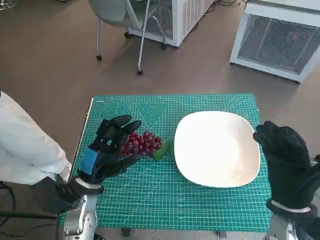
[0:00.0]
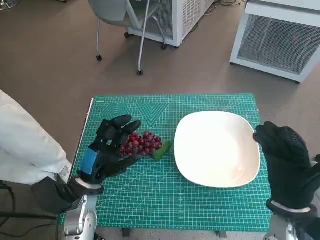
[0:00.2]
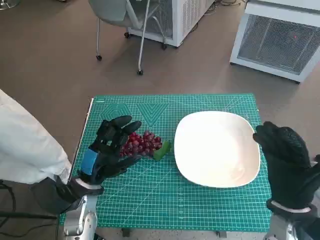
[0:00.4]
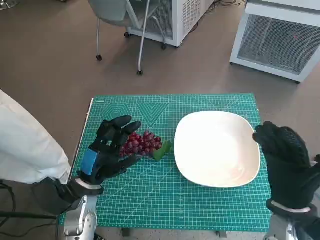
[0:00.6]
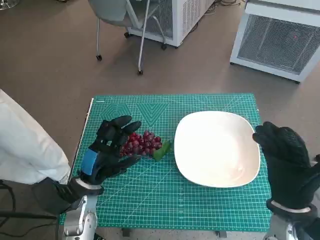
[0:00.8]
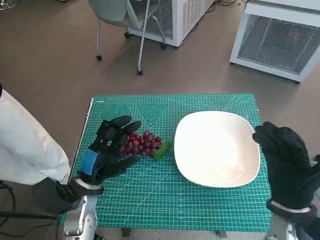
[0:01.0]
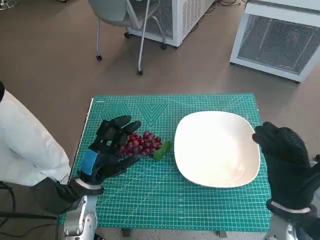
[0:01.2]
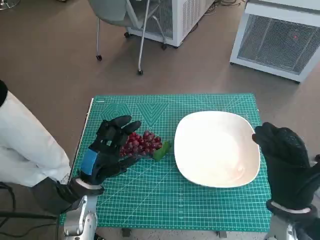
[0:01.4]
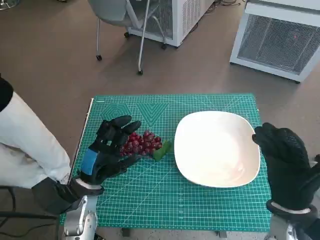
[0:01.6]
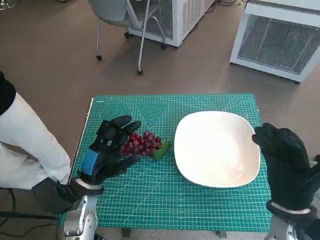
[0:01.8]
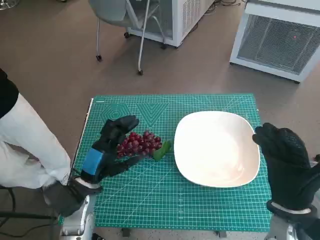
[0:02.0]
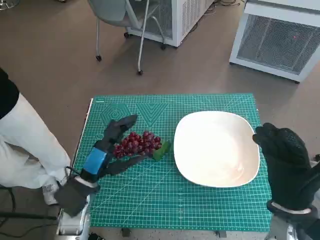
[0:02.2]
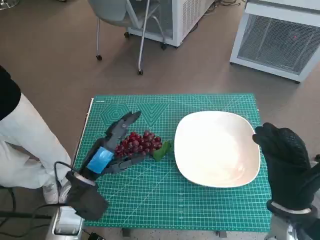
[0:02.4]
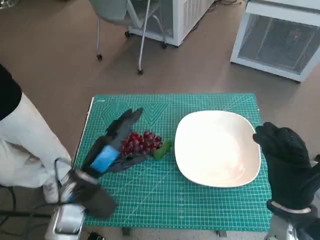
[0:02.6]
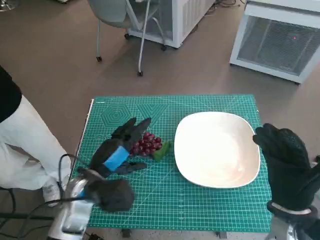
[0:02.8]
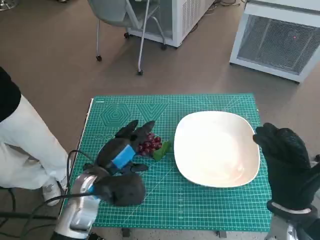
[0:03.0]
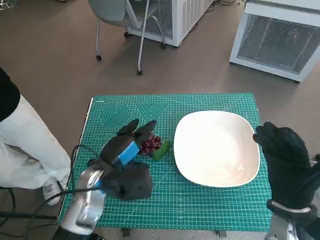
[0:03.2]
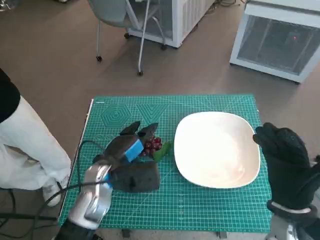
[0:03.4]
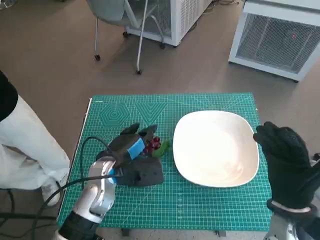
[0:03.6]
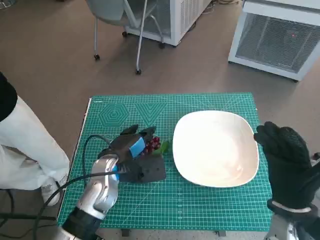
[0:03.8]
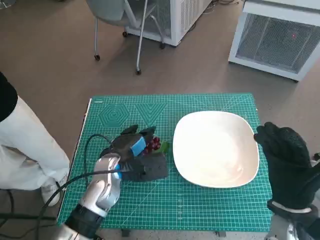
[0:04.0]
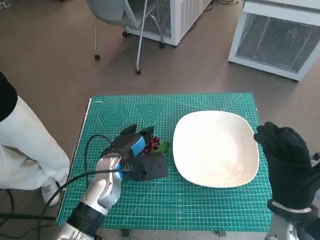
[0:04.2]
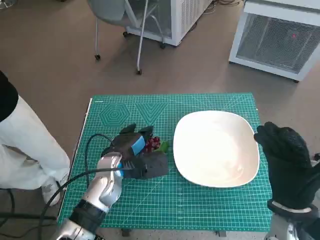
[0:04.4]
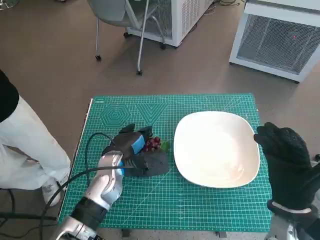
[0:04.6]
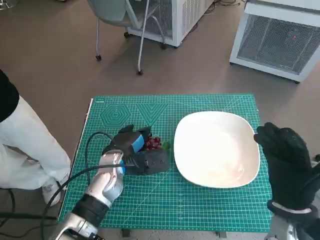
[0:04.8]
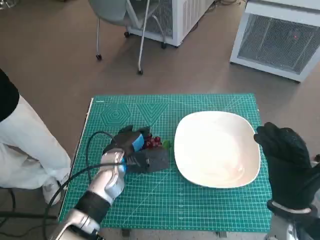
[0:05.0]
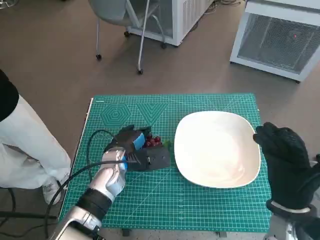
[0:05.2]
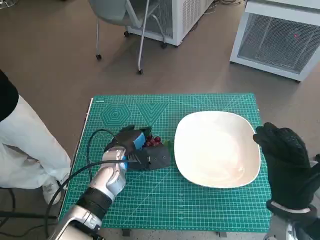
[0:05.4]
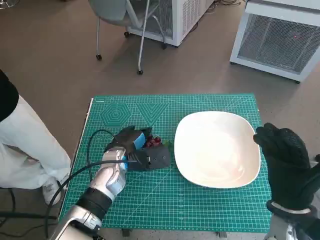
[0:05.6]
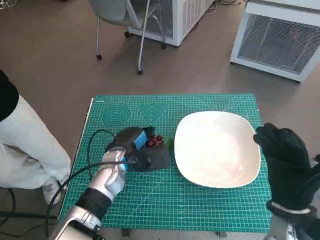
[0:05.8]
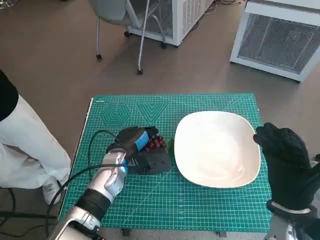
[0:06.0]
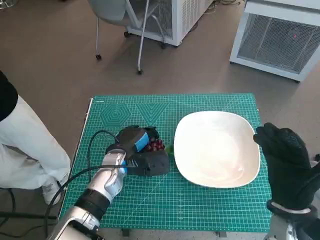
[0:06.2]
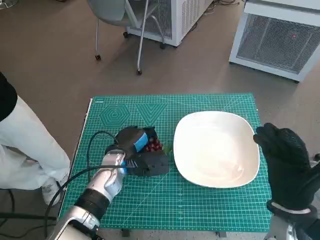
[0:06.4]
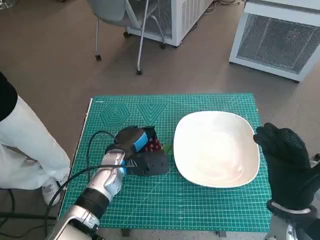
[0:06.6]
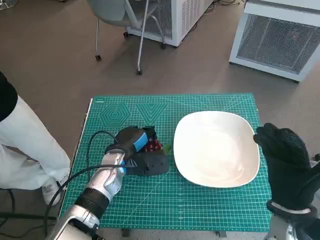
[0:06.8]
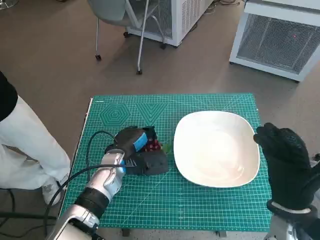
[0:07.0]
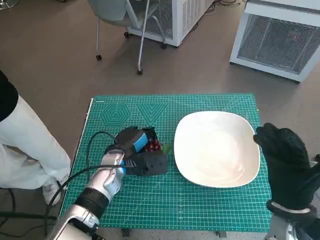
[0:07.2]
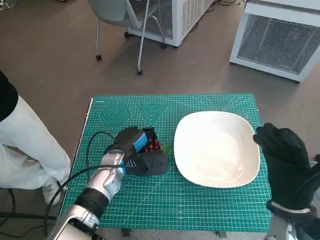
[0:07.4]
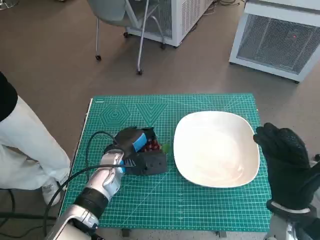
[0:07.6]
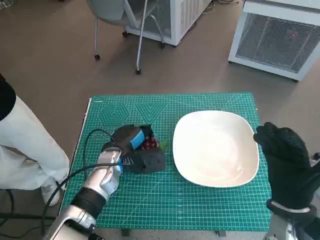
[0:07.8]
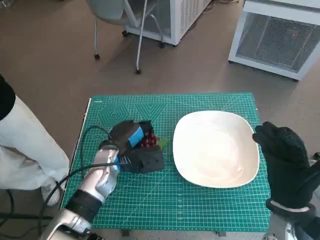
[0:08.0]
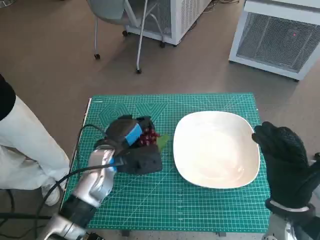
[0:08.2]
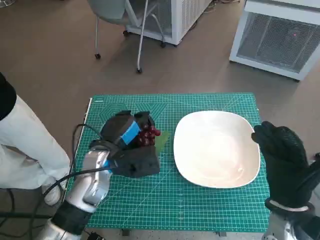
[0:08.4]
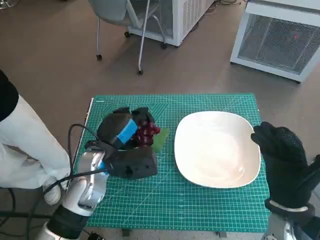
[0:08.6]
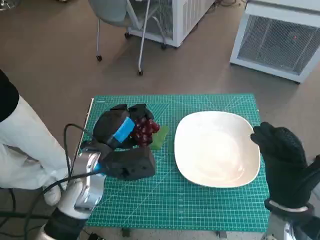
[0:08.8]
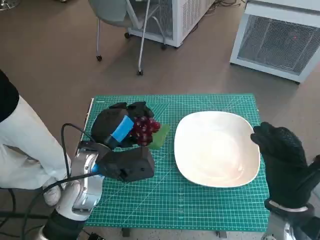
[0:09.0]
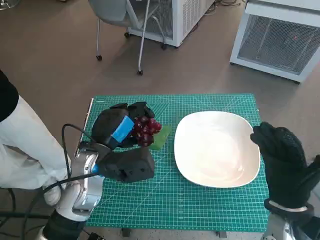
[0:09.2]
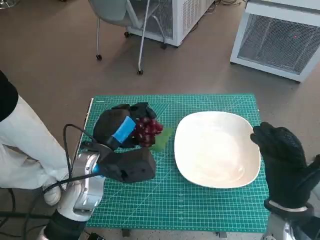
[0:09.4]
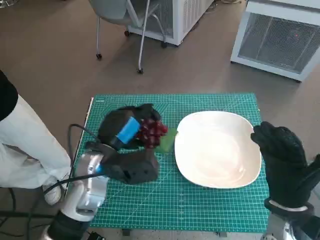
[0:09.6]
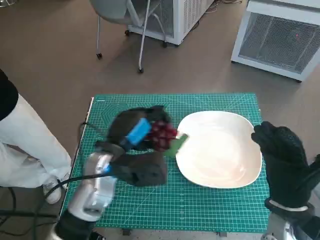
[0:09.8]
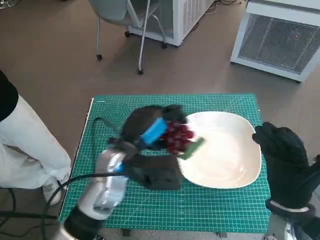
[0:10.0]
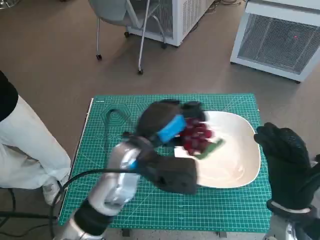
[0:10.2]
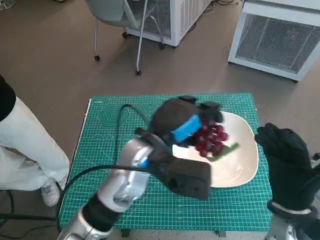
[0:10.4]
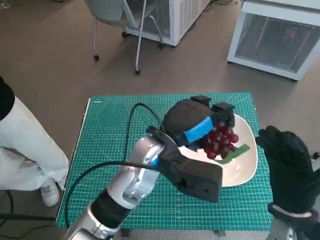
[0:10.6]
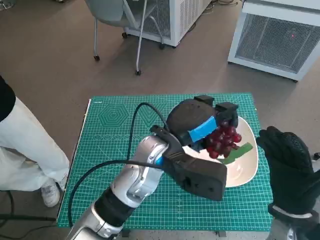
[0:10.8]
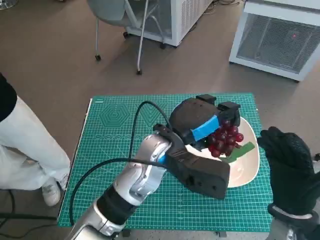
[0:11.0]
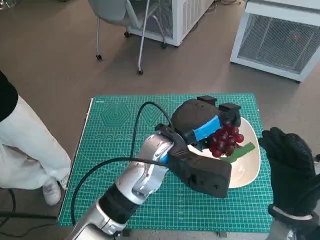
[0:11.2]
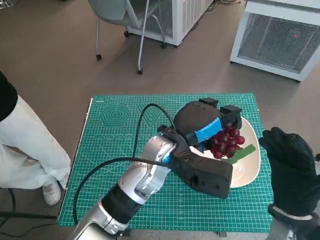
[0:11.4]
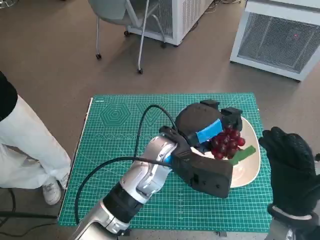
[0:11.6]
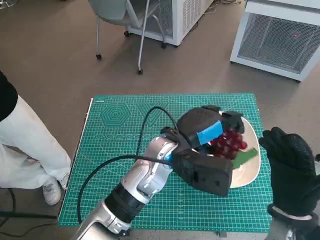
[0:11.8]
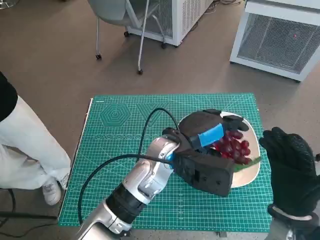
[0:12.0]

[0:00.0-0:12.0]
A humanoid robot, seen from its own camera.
Task of the whole recording: Pick up the grapes and put them on the plate.
Step, 0:00.0 to 0:07.6: Grasp the grapes with left hand.
0:03.0 to 0:04.4: The left hand moves roughly 5 cm.
0:04.4 to 0:06.0: There are only small adjustments of the hands.
0:06.0 to 0:07.6: Neither hand changes place.
0:07.6 to 0:09.0: The left hand goes approximately 10 cm upward.
0:09.0 to 0:10.4: The left hand heads to the right, covering about 10 cm.
0:10.4 to 0:12.0: The left hand changes place by about 5 cm.

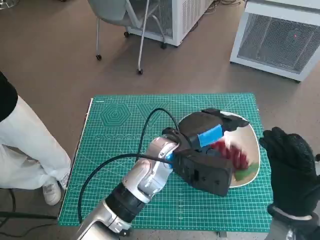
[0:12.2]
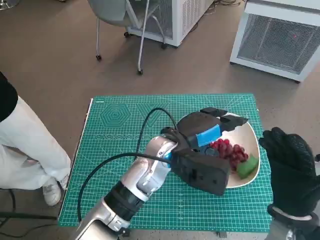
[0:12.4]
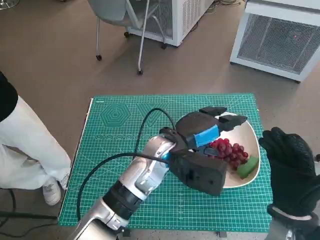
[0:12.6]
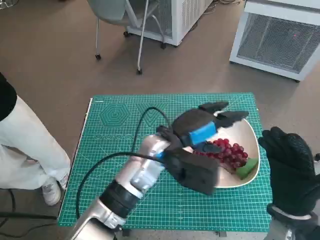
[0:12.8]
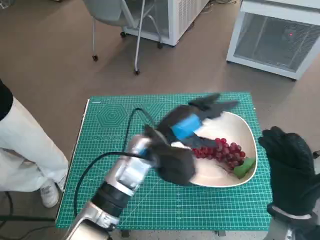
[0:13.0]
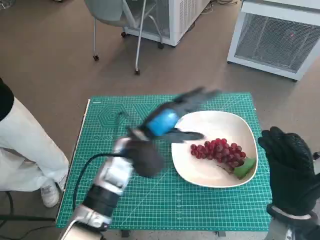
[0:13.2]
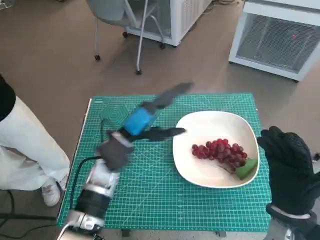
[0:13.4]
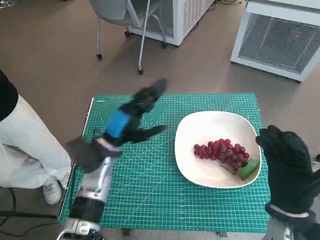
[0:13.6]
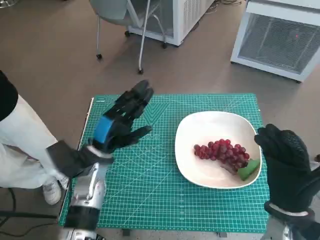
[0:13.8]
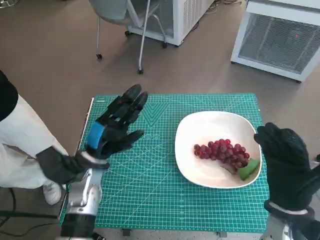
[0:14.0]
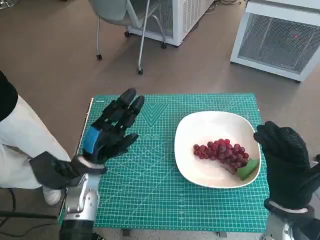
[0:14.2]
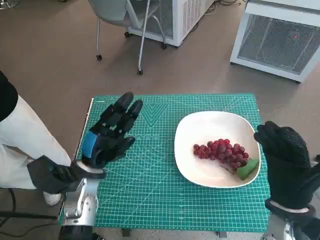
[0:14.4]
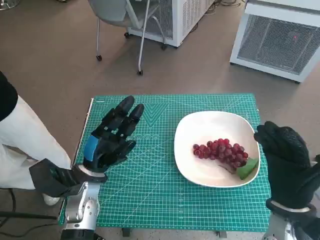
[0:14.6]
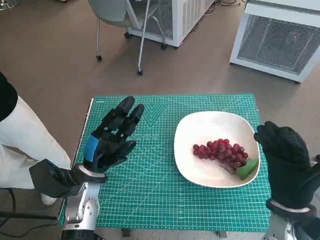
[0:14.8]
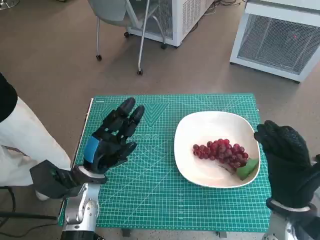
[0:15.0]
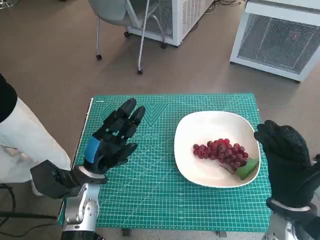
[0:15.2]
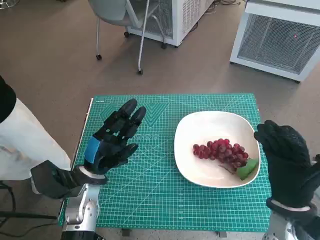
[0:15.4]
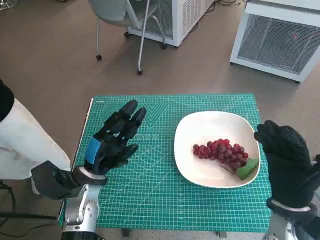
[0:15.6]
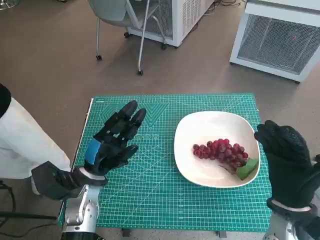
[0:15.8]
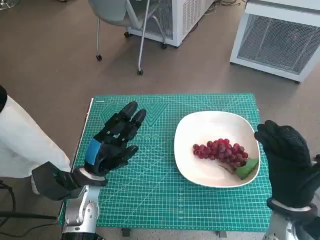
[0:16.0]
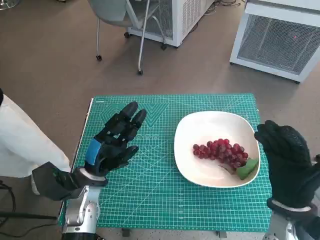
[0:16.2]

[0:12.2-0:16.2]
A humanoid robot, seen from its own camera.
Task of the whole recording: Pick up the grapes and put them on the plate.
0:12.2 to 0:13.6: The left hand heads to the left, covering approximately 15 cm.
0:13.6 to 0:14.8: The left hand moves about 5 cm.
0:14.8 to 0:16.2: Both hands stay about where they are.

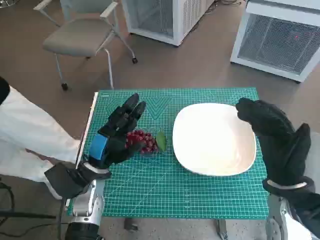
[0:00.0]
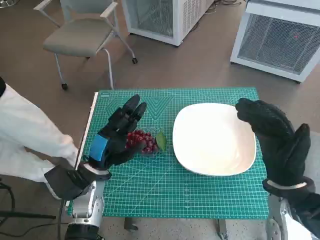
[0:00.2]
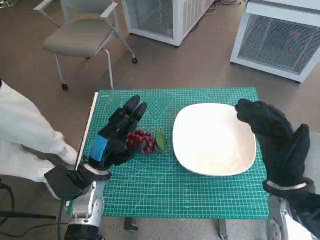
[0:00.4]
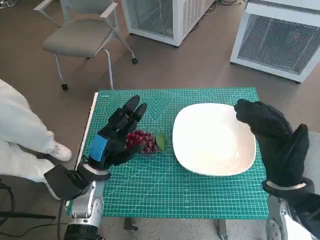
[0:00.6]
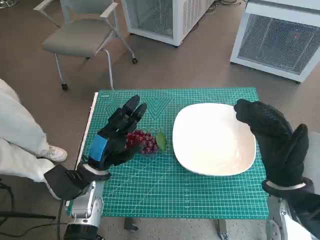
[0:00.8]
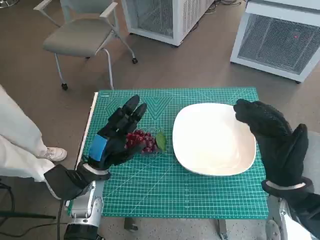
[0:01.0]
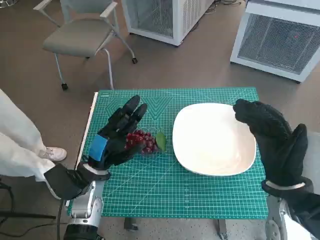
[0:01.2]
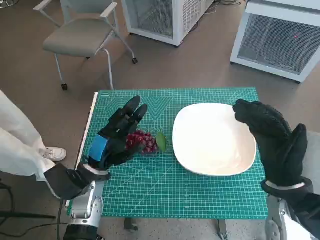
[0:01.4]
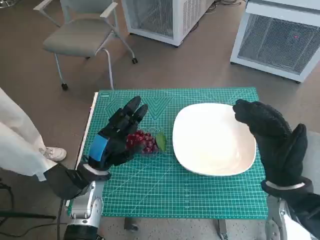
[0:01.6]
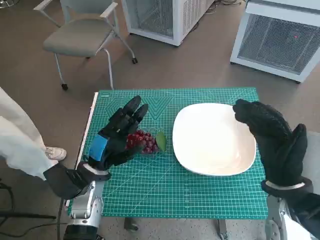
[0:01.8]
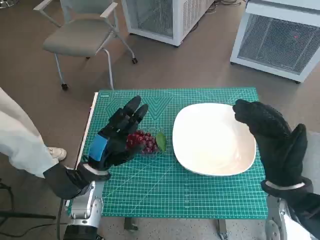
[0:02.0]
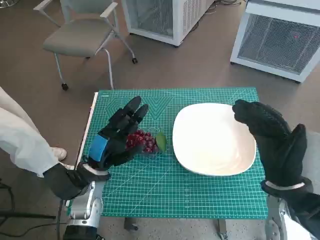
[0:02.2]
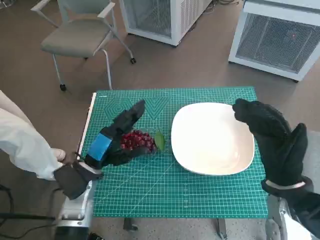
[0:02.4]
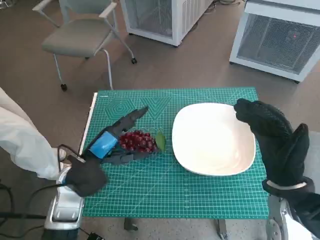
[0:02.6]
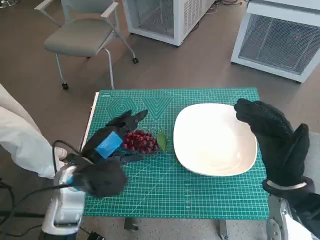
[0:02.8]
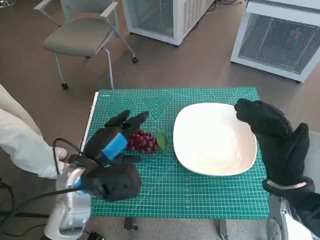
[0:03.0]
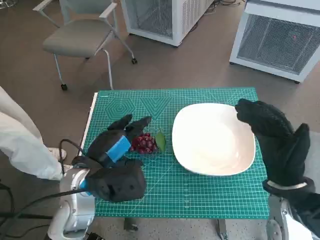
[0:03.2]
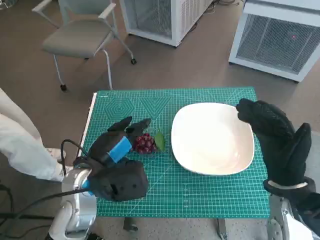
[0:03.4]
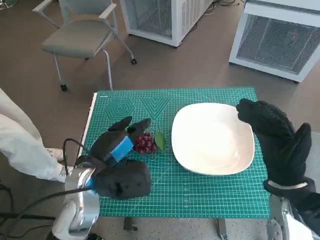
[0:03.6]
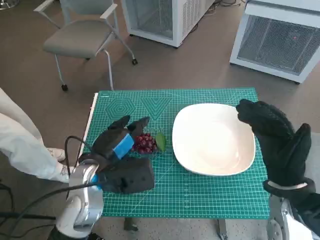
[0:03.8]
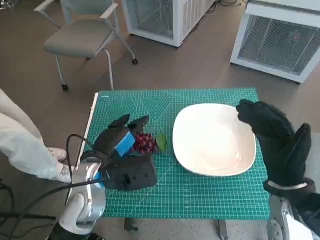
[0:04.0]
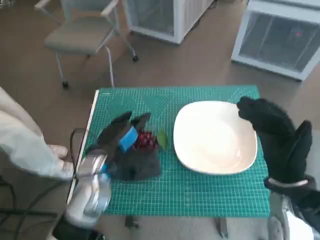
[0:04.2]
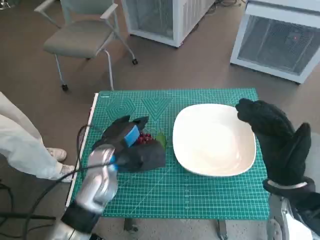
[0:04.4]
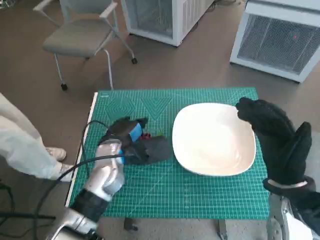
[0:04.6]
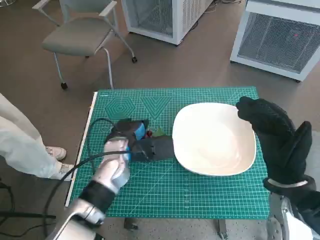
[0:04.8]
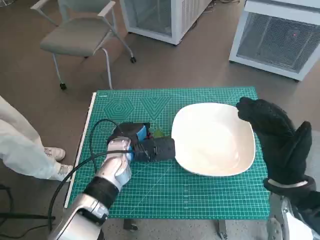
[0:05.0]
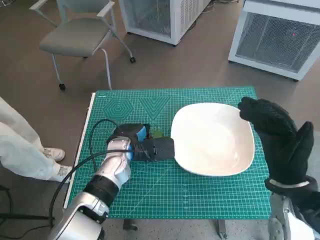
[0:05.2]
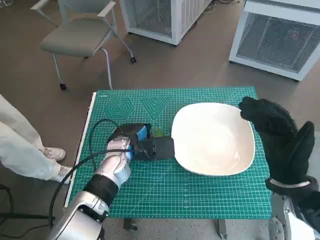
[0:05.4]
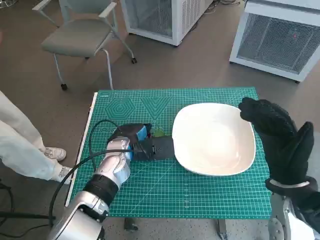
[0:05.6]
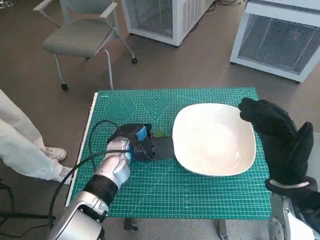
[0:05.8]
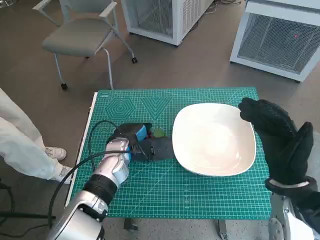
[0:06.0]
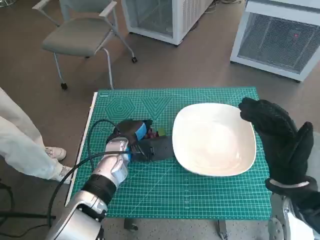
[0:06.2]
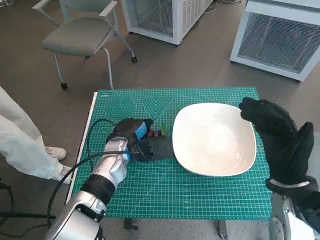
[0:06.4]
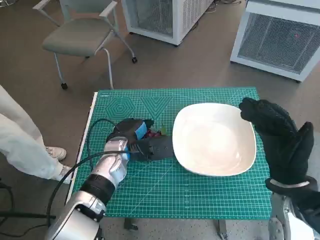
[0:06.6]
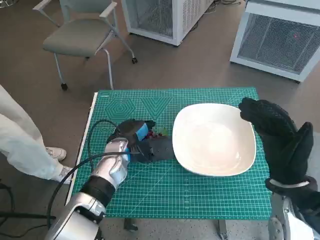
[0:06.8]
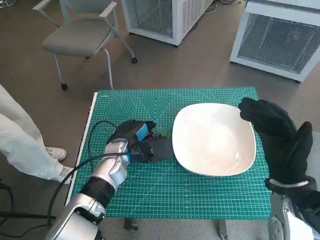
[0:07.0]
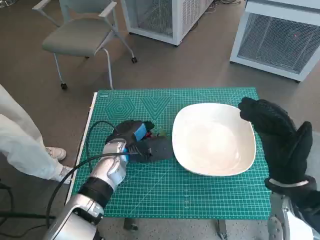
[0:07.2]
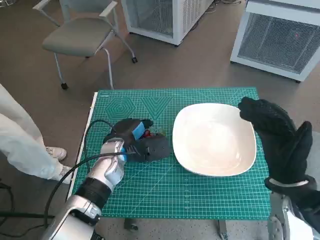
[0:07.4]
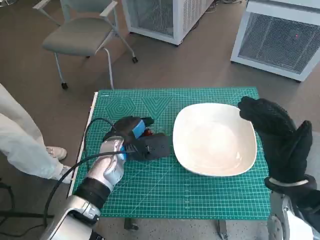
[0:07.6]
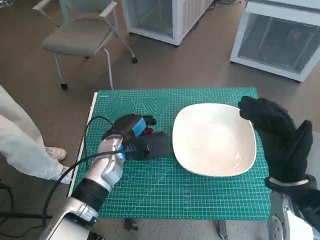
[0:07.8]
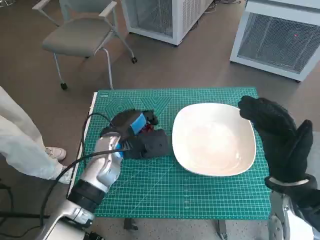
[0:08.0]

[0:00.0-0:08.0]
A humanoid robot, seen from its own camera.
Task of the whole recording: Pick up the grapes and put them on the plate.
Step, 0:00.0 to 0:05.4: Grasp the grapes with left hand.
0:01.6 to 0:03.2: The left hand goes approximately 5 cm upward.
0:03.2 to 0:04.8: The left hand heads forward, covering roughly 10 cm.
0:04.8 to 0:08.0: The hands stay close to where they were, moving slightly.
